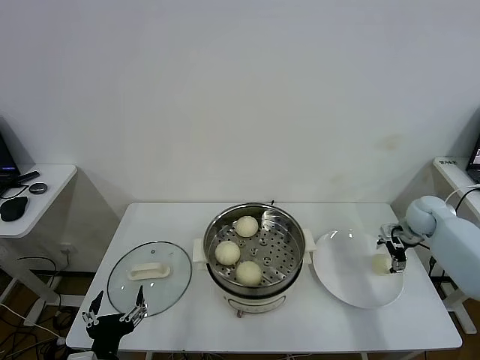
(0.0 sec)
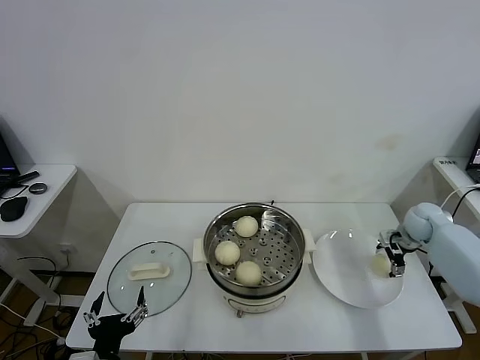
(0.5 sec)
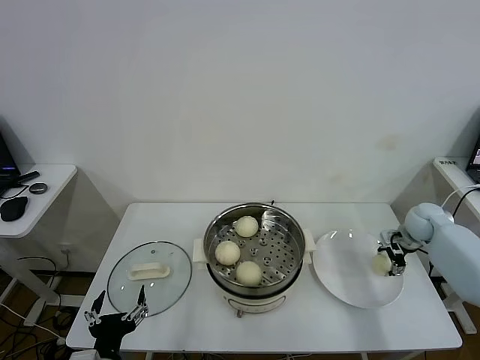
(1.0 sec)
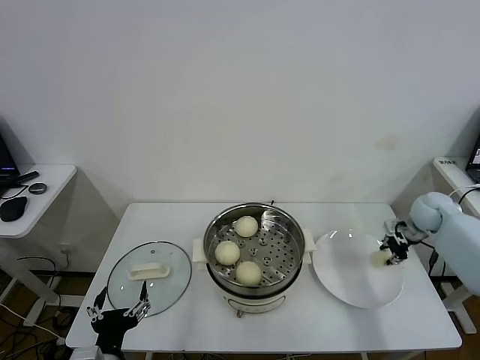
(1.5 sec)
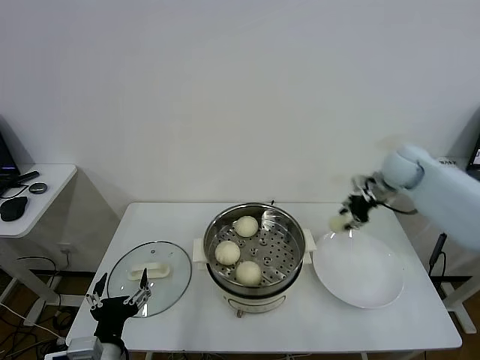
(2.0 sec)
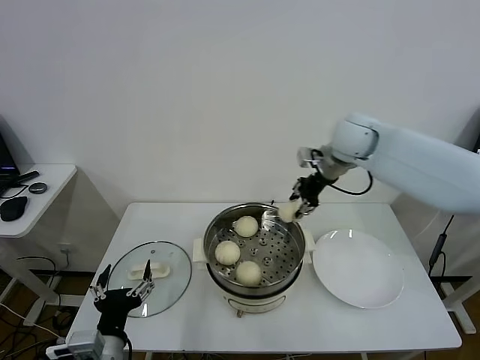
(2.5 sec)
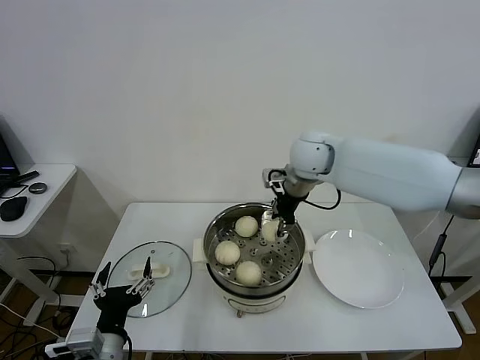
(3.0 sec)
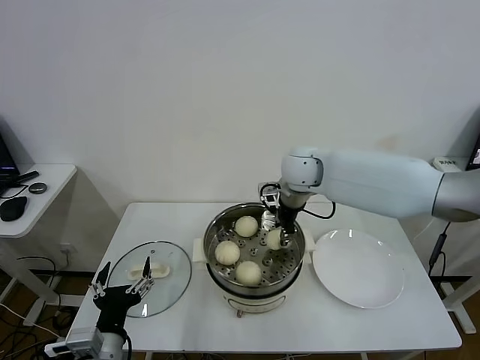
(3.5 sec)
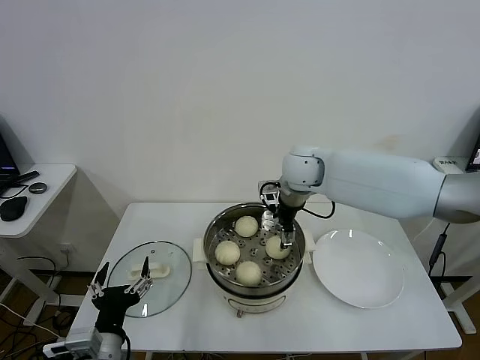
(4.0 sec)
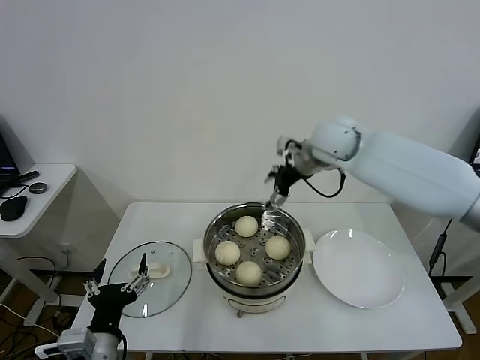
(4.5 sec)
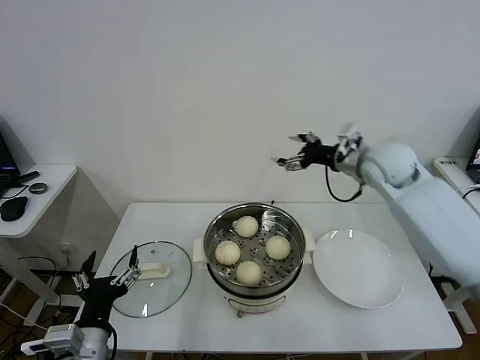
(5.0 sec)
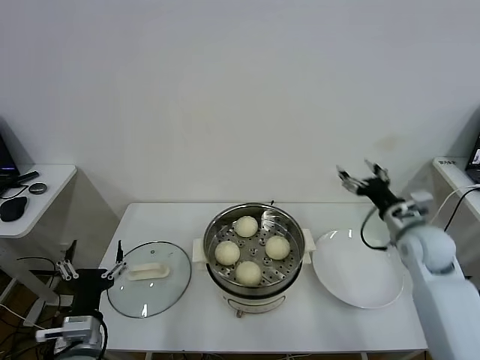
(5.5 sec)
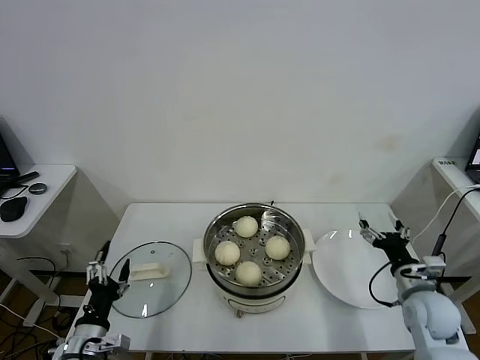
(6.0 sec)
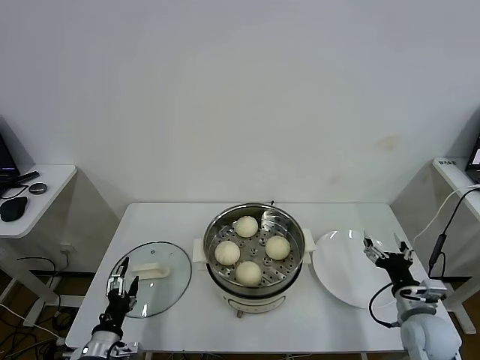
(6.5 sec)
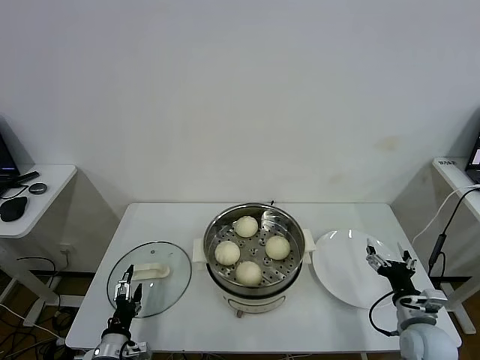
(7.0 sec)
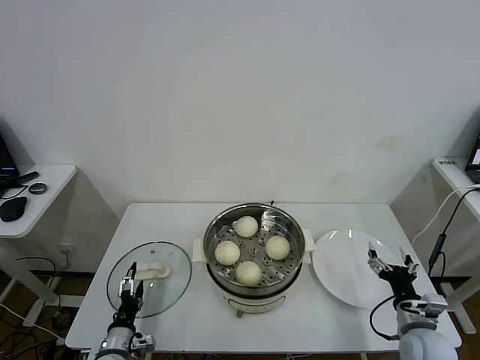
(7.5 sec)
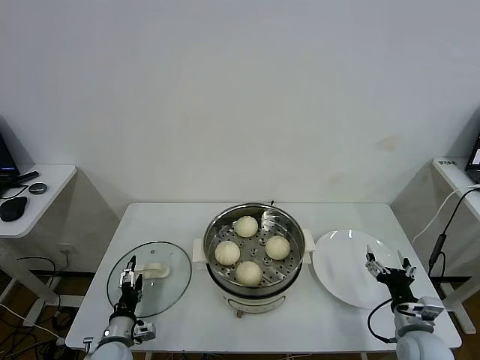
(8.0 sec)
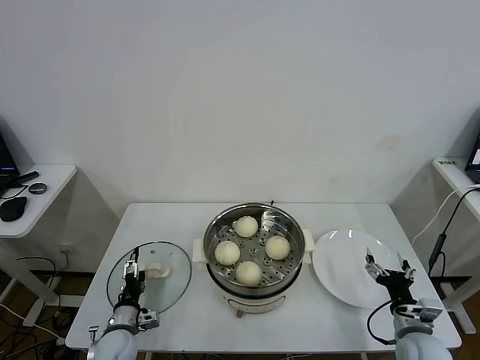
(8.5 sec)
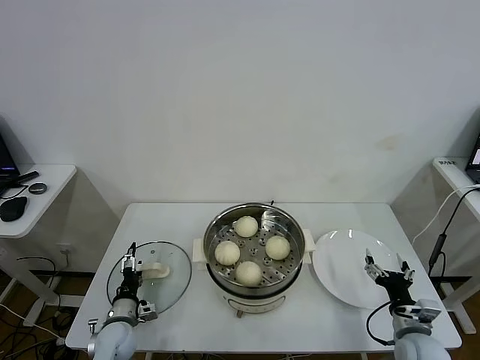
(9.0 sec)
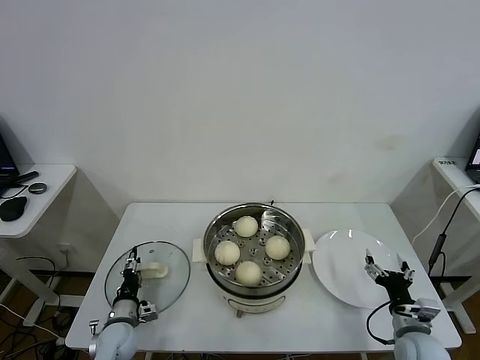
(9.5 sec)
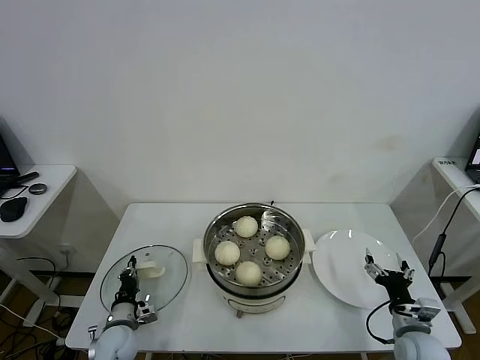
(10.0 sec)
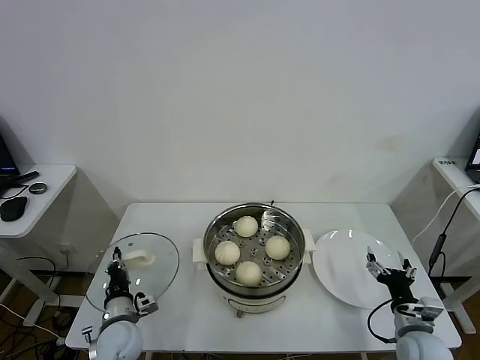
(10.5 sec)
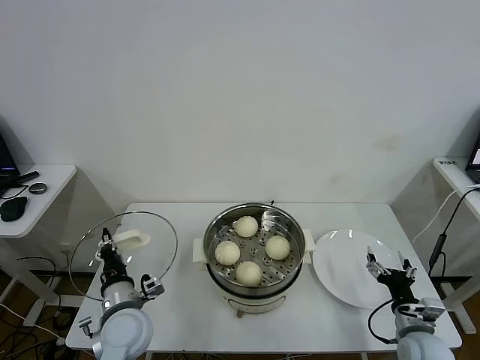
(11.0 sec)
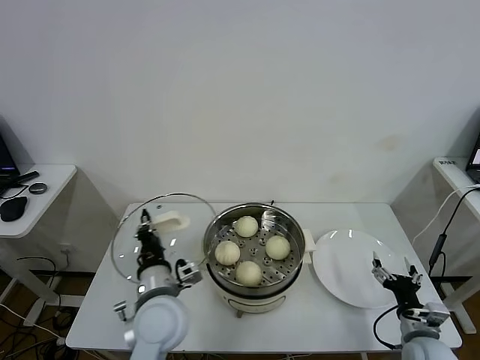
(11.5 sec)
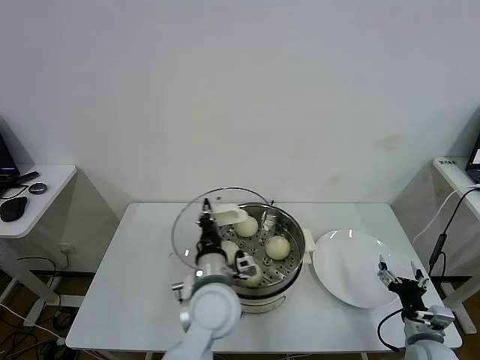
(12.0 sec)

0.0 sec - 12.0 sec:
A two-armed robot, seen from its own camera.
Task of the whole recording: take steamed baozi put them in steamer.
Step, 1.5 sec - 4.0 sec: Place the baozi on the steamer with right gripper.
Step, 4.5 sec - 10.0 sec: Grasp the pot lid with left gripper.
0.0 sec - 2.0 sec: The right gripper goes approximately 20 cm upward and to the left, and closes.
2.0 sec - 4.0 sec: The right gripper shifts approximately 25 cm to the left, and opens up.
4.0 sec - 6.0 sec: The right gripper goes approximately 40 cm to the right, backward and downward. Meanwhile the left gripper moves to the left and downward, some 10 cm.
6.0 sec - 8.0 sec: The right gripper shifts approximately 10 cm backward and downward. The left gripper shifts roughly 15 cm downward and forward.
8.0 sec - 10.0 sec: The left gripper closes up.
10.0 sec - 12.0 sec: The left gripper moves to the right and upward, approximately 35 cm.

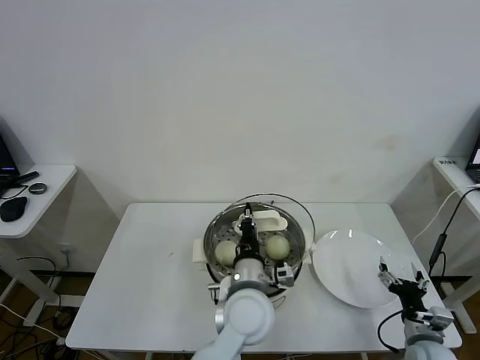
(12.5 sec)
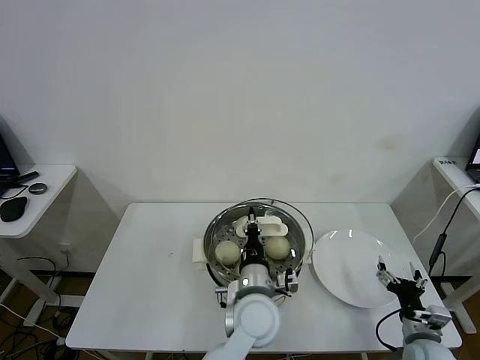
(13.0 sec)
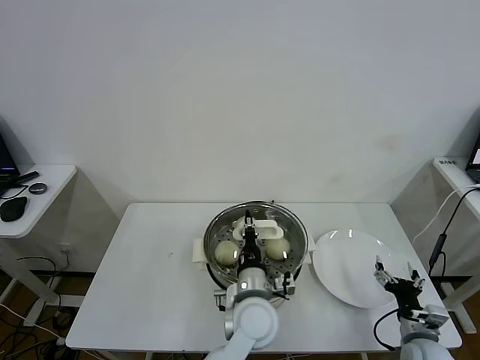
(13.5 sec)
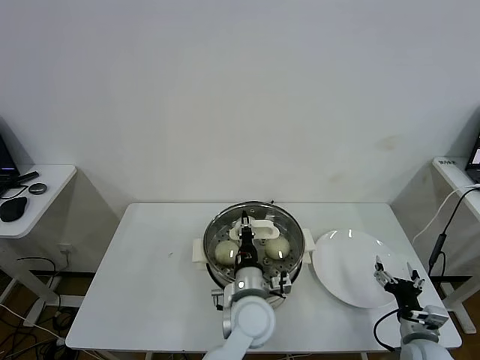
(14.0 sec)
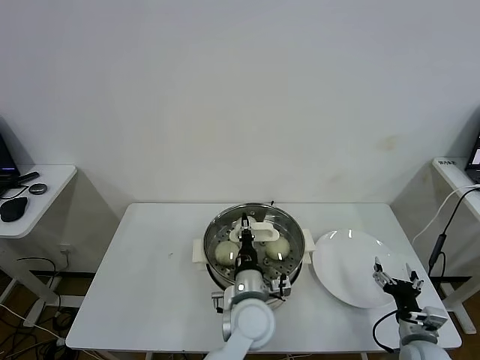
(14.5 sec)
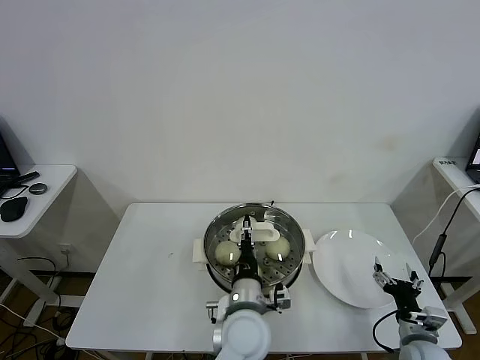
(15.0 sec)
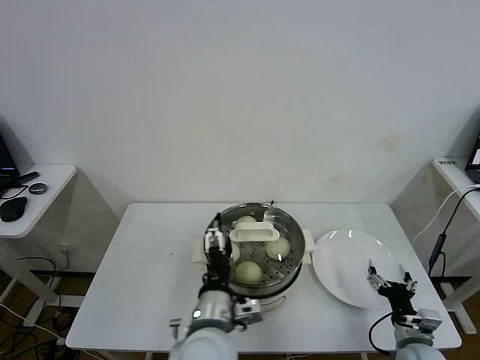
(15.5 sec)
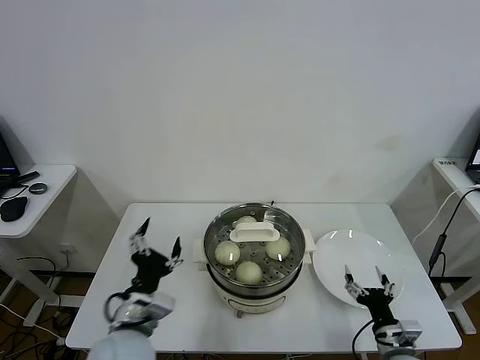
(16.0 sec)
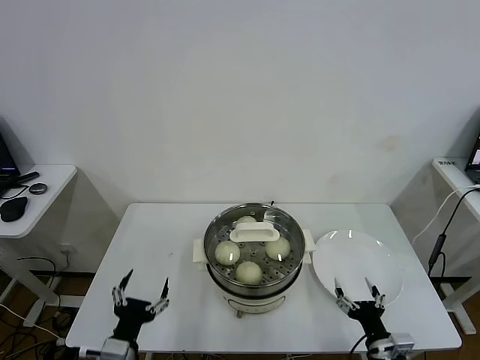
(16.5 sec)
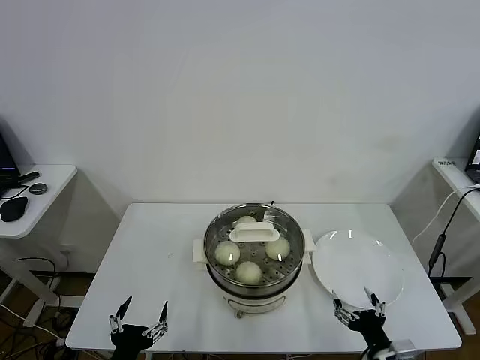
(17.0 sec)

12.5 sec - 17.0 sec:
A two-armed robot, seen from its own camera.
Task of the whole recording: take steamed baozi put them in steamer.
Step, 12.5 sec - 15.0 sec: Place the pot lid on the steamer with left gripper.
12.5 sec - 14.5 sec: The left gripper shifts roughly 5 cm downward.
14.5 sec - 17.0 sec: The left gripper goes about 35 cm to the left and backward, and opens up. The right gripper moves backward and to the left, some 10 cm.

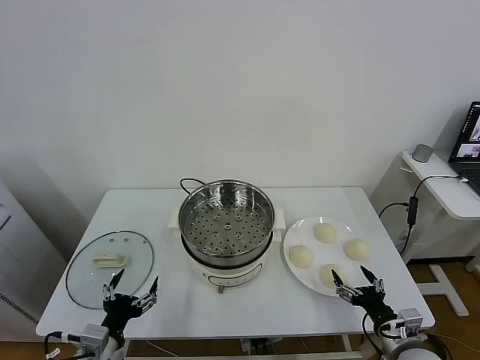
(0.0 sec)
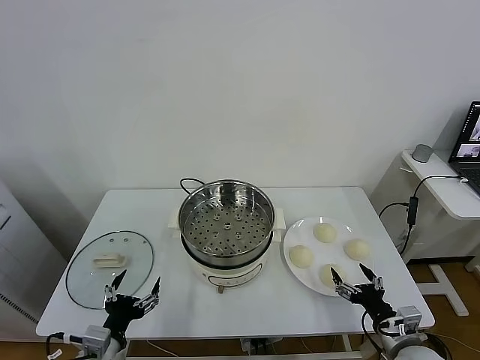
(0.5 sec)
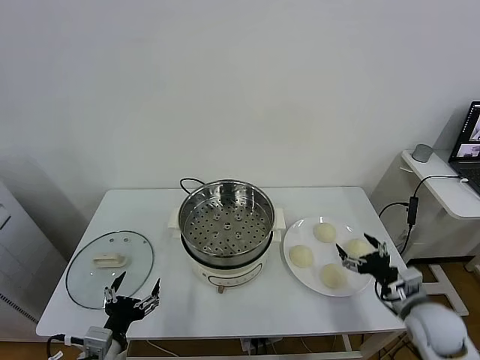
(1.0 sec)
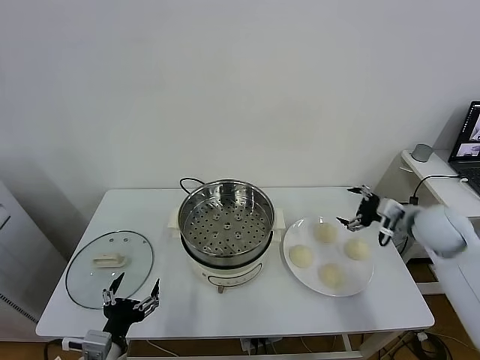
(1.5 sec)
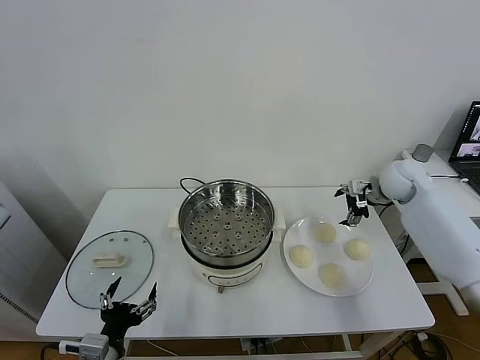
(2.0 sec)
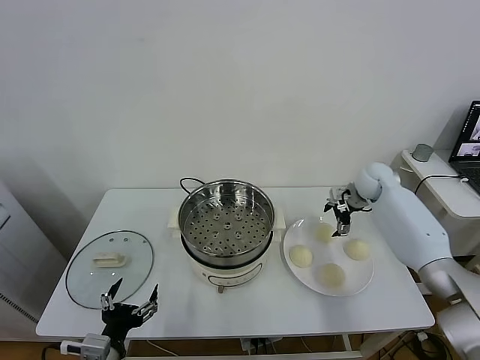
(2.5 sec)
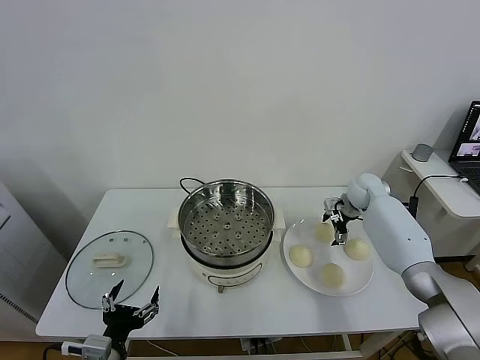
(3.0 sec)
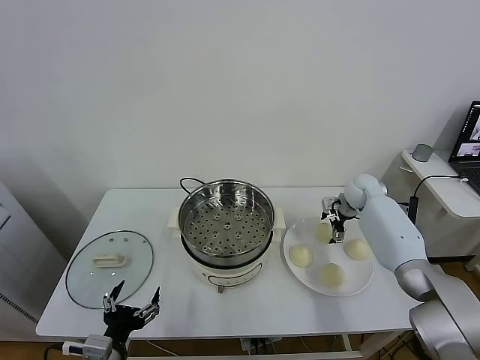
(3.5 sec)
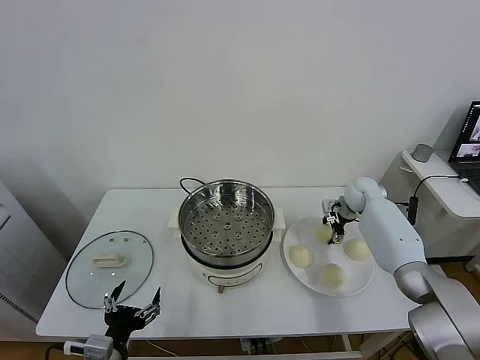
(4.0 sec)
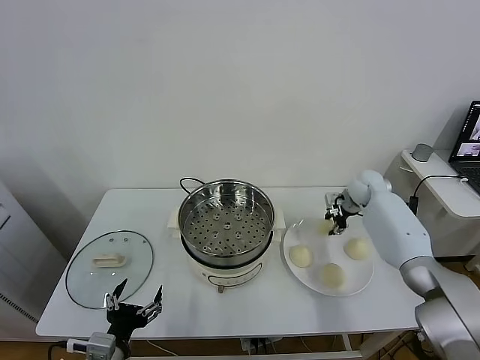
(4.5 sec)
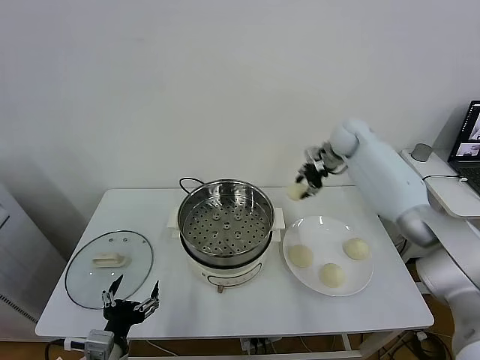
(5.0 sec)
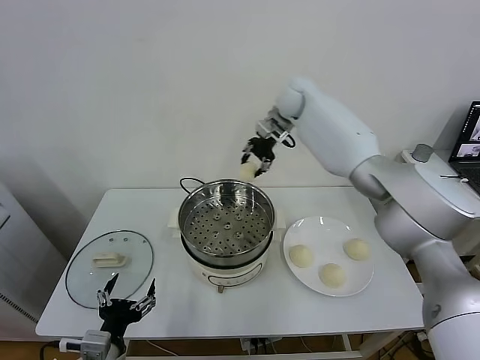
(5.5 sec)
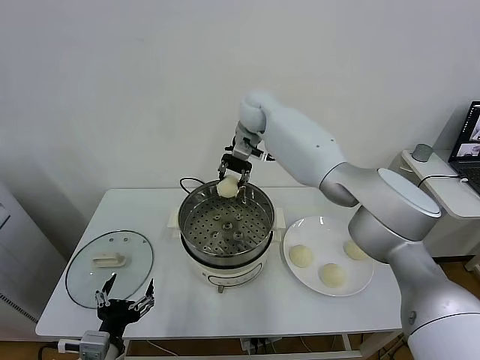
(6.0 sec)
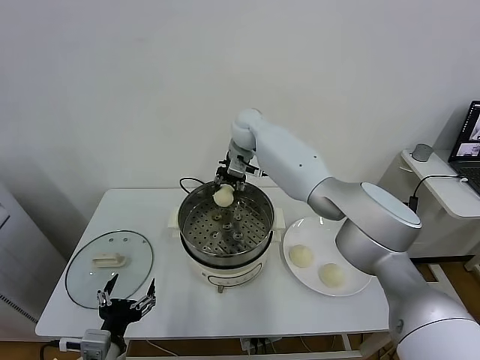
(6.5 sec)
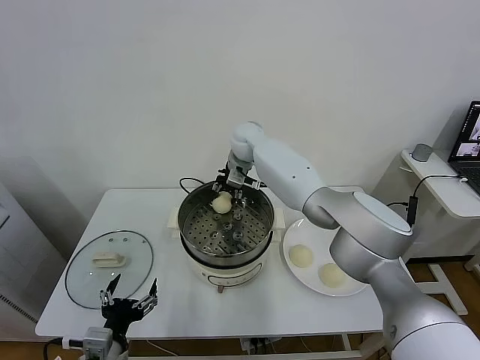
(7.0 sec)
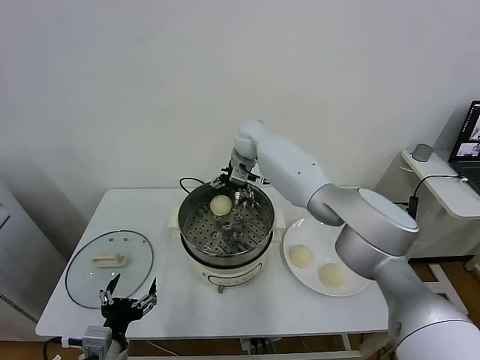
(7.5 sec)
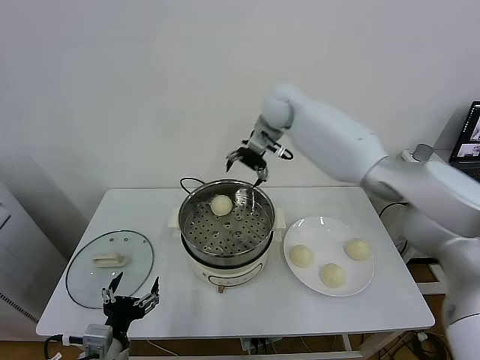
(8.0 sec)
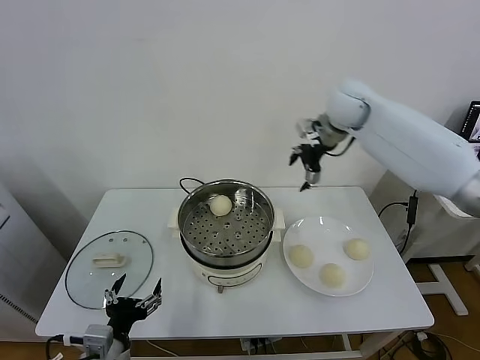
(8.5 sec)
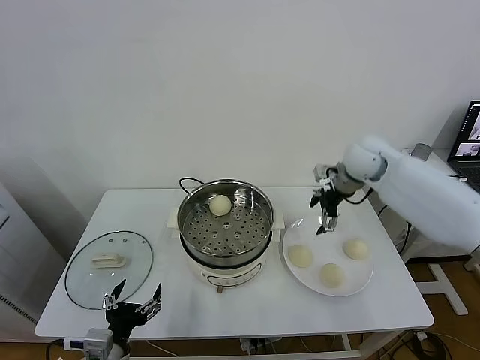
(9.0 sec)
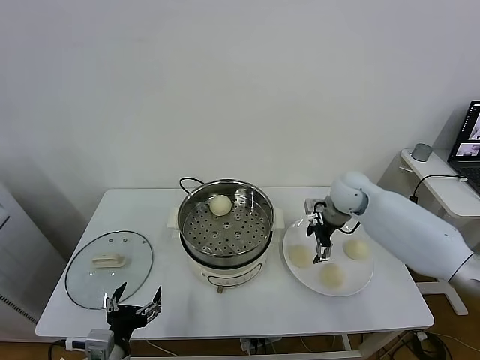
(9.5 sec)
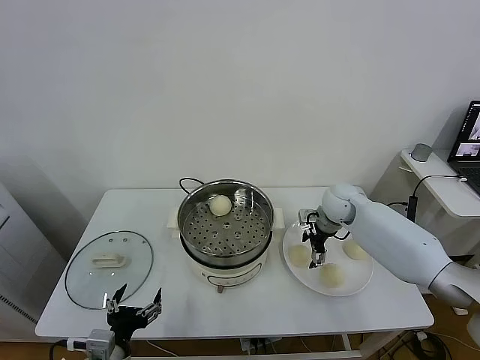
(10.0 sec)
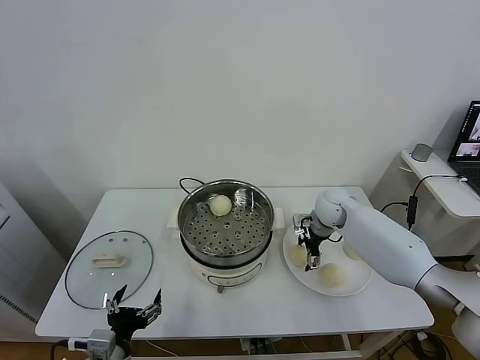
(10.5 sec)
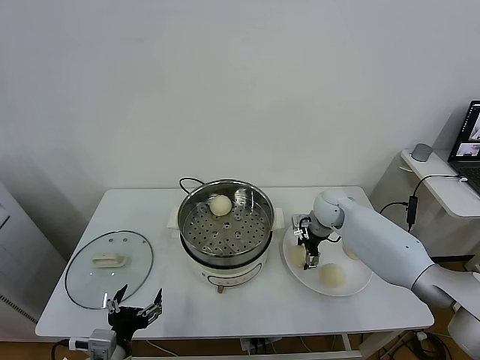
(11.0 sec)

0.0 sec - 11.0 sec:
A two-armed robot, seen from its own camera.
Task of the whole recording: take steamed baozi put them in steamer.
Step, 0.0 sec - 4.0 sec: Grasp the baozi in the plate with right gripper.
Step, 4.5 sec - 7.5 sec: Place the baozi on the steamer with right gripper.
2.0 sec - 3.5 sec: The right gripper shifts some 10 cm downward.
3.5 sec - 5.5 sec: The right gripper is displaced upward and to the left by roughly 35 cm, and closes its fingers.
5.5 sec - 7.5 sec: The right gripper heads downward and to the left, covering approximately 10 cm, and opens its fingers.
7.5 sec - 9.0 sec: The right gripper is displaced to the right and backward by roughly 25 cm.
9.0 sec - 11.0 sec: The right gripper shifts roughly 15 cm downward.
